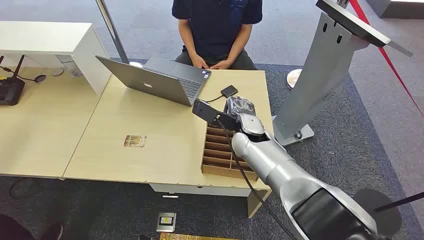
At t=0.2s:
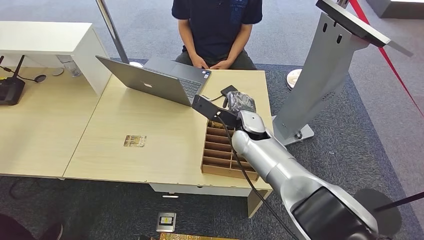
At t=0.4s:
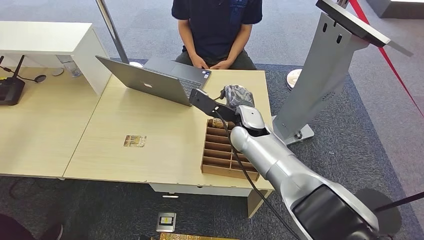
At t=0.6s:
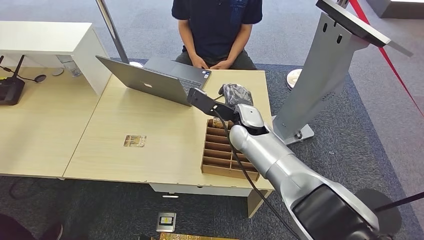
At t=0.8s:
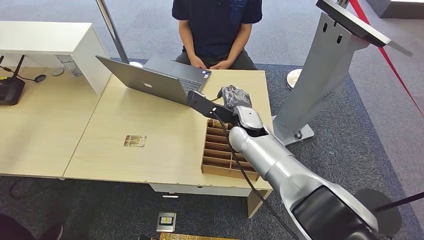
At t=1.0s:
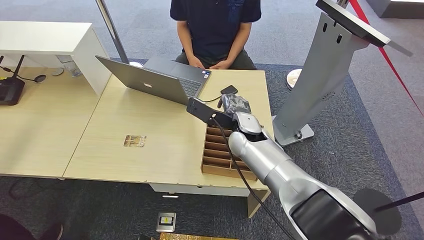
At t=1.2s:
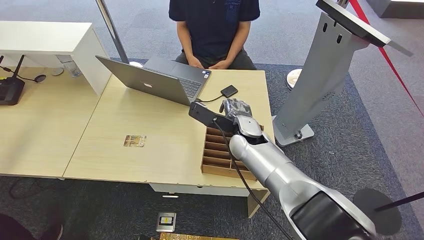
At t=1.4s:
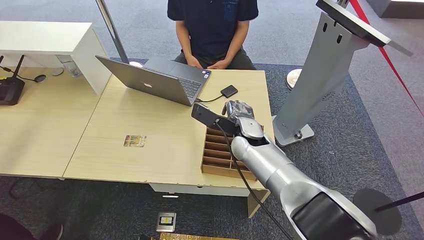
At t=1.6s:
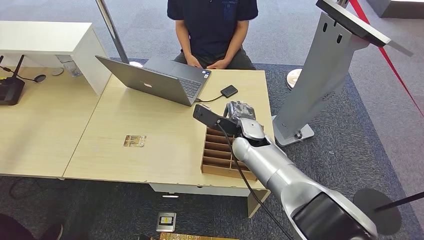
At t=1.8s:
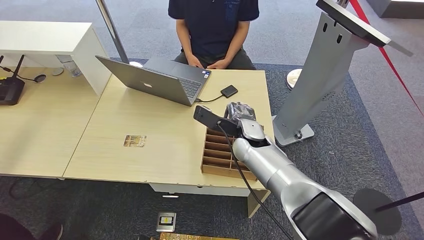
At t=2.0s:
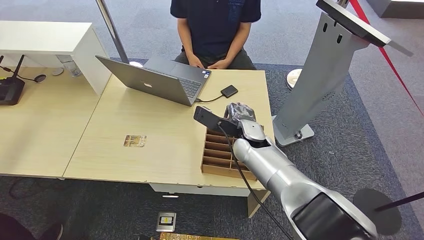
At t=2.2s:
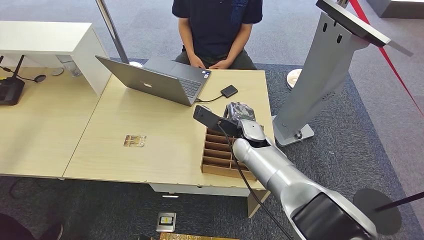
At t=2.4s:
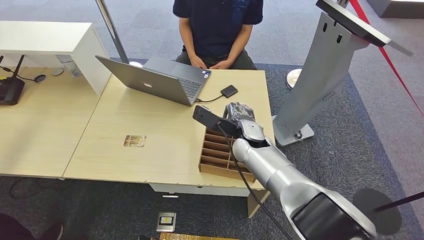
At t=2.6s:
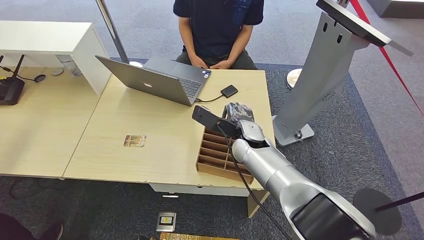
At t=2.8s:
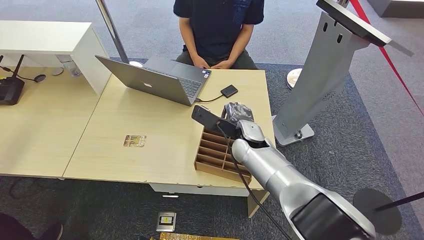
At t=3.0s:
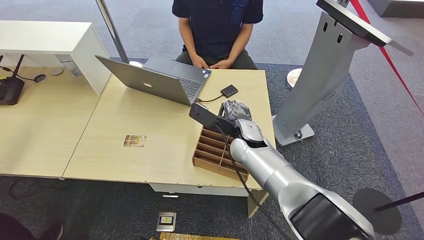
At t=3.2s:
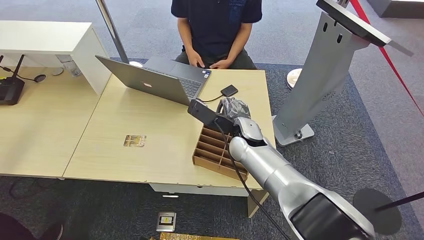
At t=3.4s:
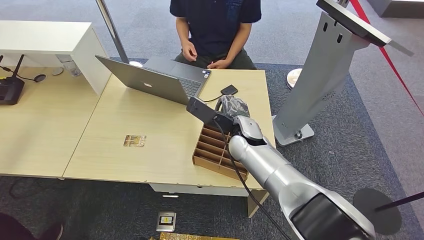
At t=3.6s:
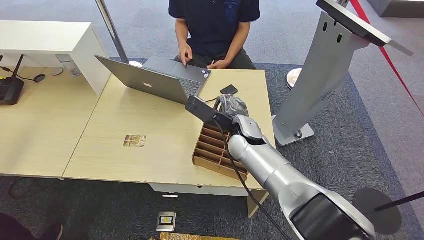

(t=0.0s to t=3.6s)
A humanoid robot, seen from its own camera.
Step, t=0.0s - t=3.6s: Pick up the key card from the card box.
t=1.8s - t=3.6s: There are only small adjustments of the hands.
